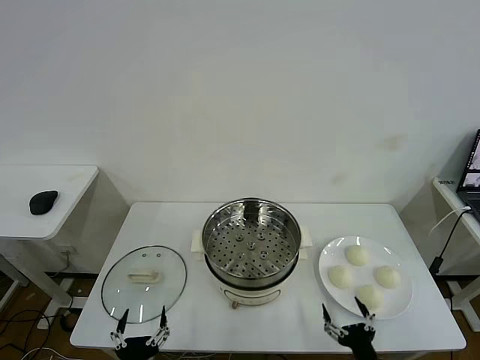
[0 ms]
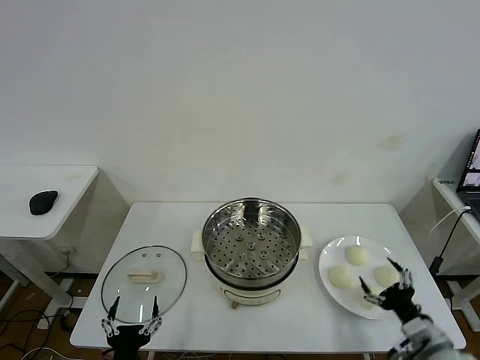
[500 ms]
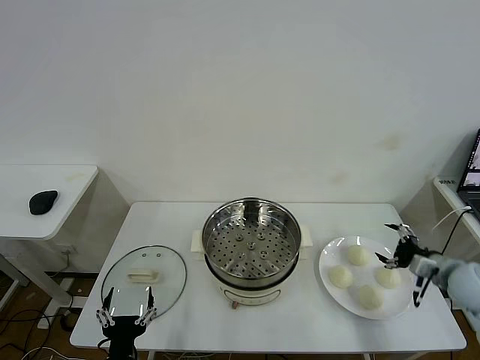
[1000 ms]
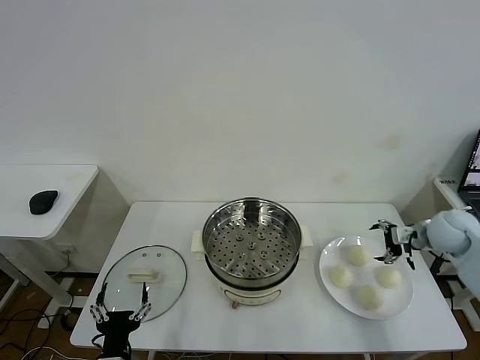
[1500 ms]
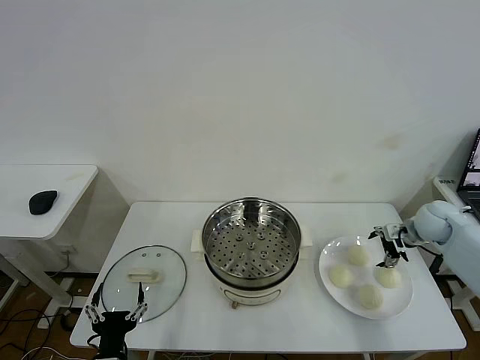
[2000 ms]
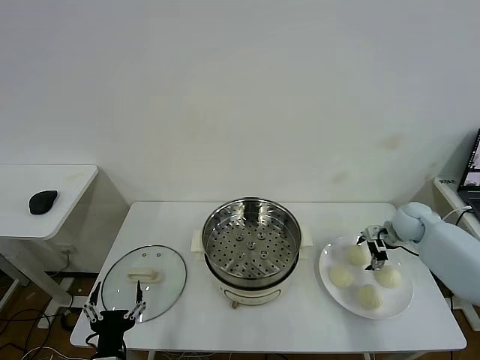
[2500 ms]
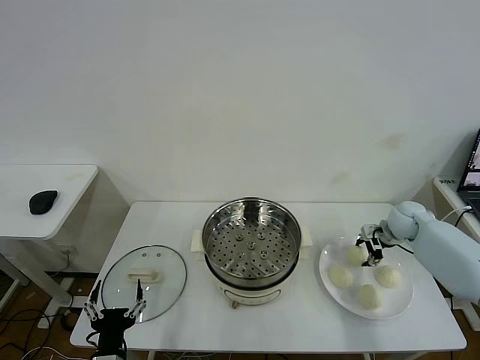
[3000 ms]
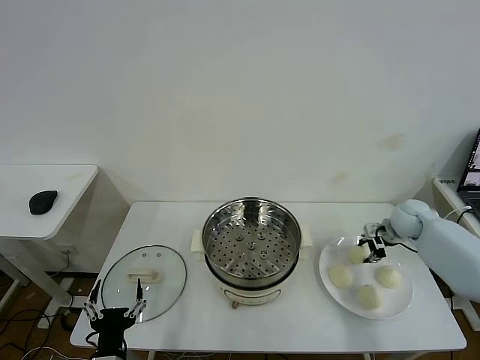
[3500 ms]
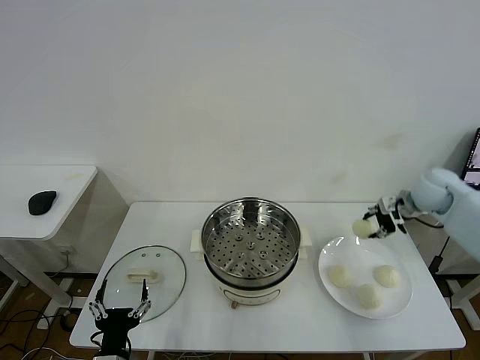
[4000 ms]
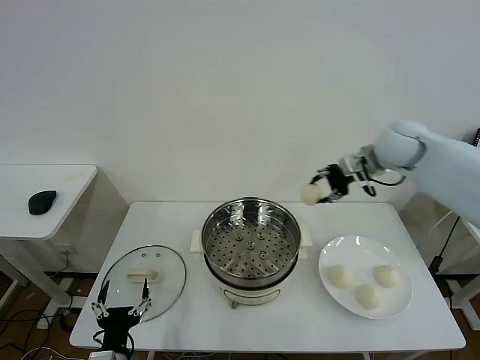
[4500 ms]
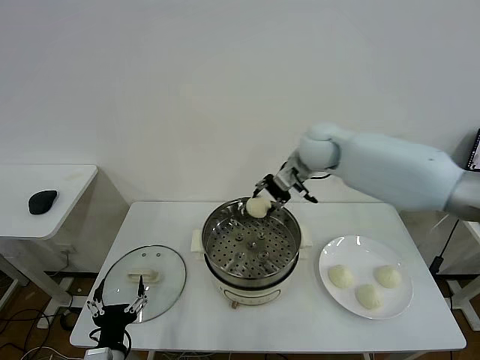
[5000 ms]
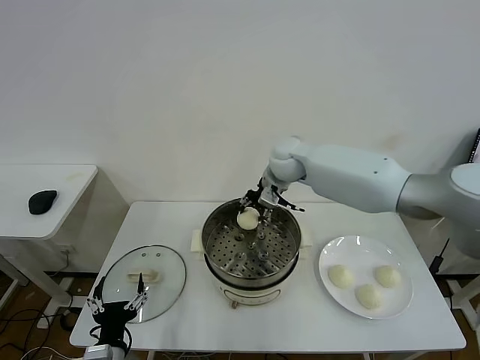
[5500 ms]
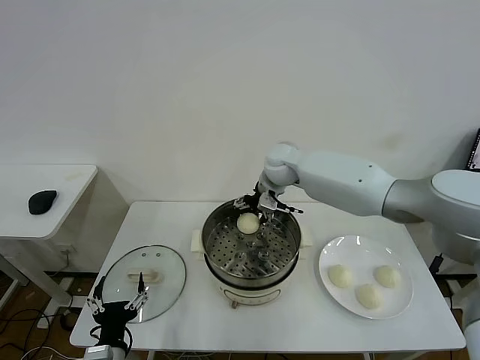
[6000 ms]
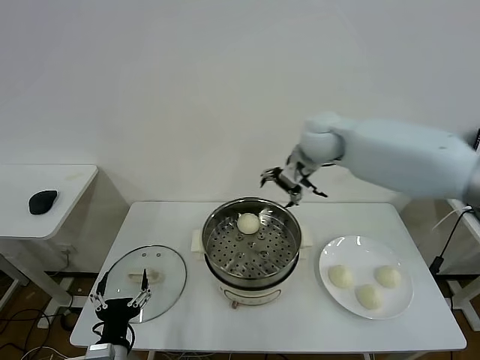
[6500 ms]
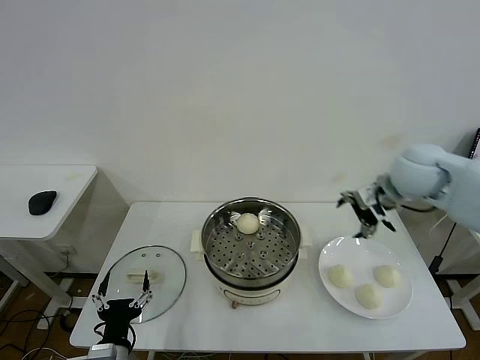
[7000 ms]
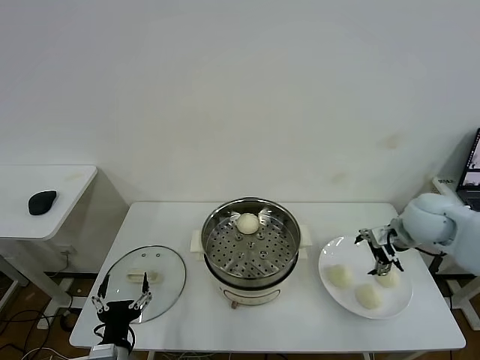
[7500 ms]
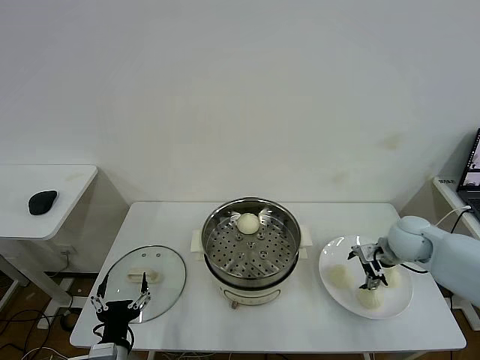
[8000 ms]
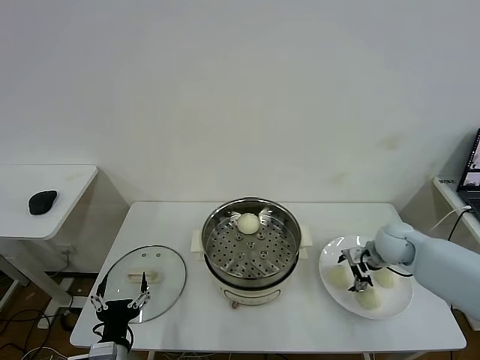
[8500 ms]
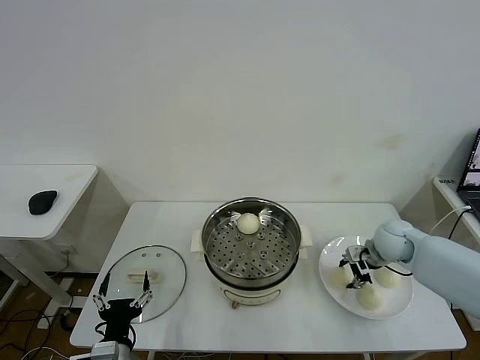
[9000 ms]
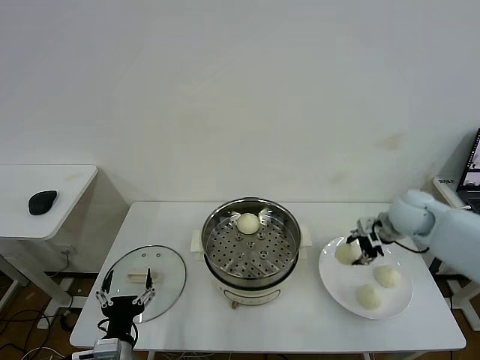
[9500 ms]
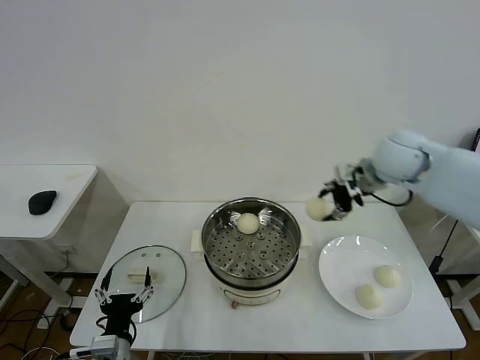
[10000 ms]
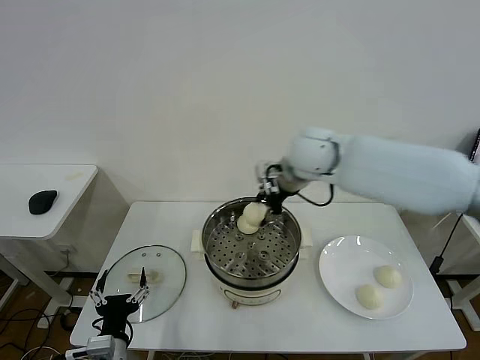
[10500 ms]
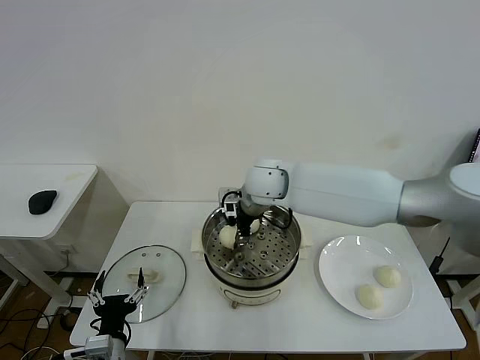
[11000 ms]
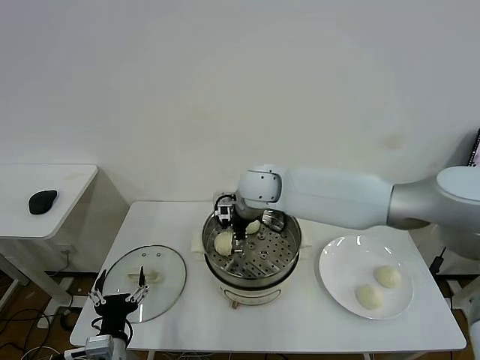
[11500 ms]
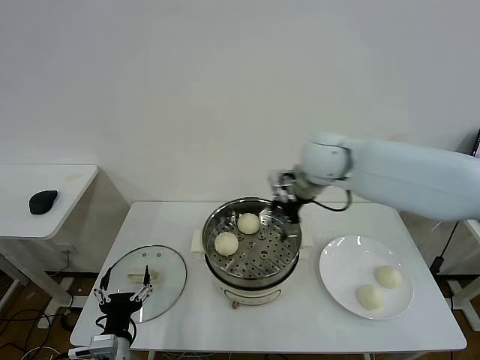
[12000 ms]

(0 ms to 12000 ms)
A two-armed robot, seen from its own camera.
Task of the whole recording: take steamed baozi put them in steamer then cover it.
Step, 0 ms - 3000 ms: Grasp the baozi in the plate with right gripper.
Step, 3500 ms - 6000 ms: Place the baozi on the steamer with right gripper.
Step, 6500 ms - 9000 ms: Grasp the baozi in the plate with right gripper.
Step, 9500 ms - 11500 ms: Place the baozi on the steamer with right gripper.
2000 ms - 4000 ms: The right gripper moves upward, about 15 cm, and closes its fingers.
4000 ms - 6000 ms: The right gripper heads to the left, covering roughly 30 cm, and opens up.
6000 ms - 8000 ms: The right gripper goes roughly 35 cm to the right, backward and downward.
8000 ms - 10000 ms: The right gripper moves upward and to the left, roughly 25 cm, and closes.
10000 ms - 12000 ms: The right gripper travels to the left and back again, approximately 20 cm each way, and opens.

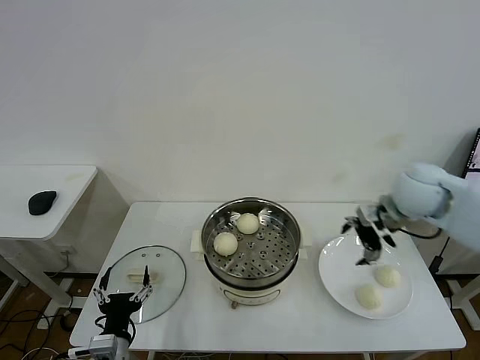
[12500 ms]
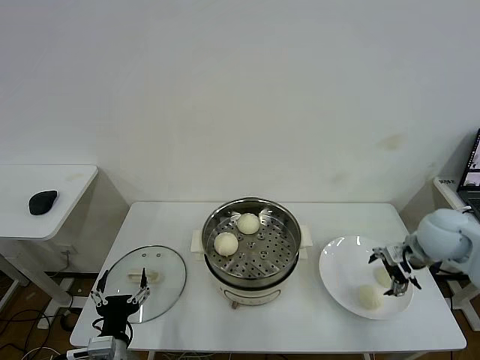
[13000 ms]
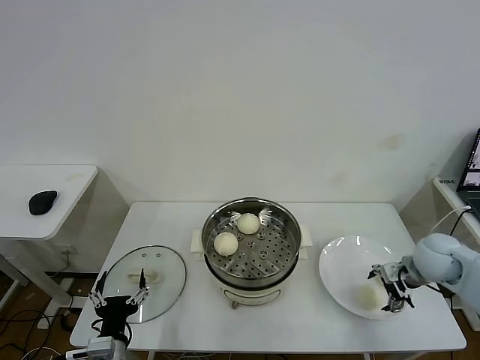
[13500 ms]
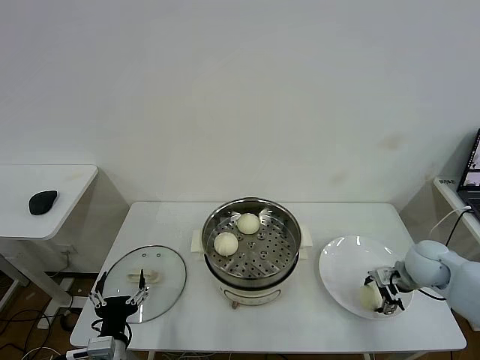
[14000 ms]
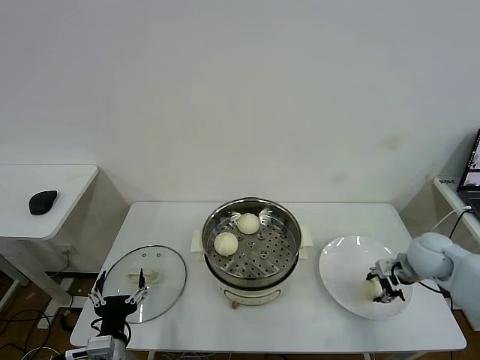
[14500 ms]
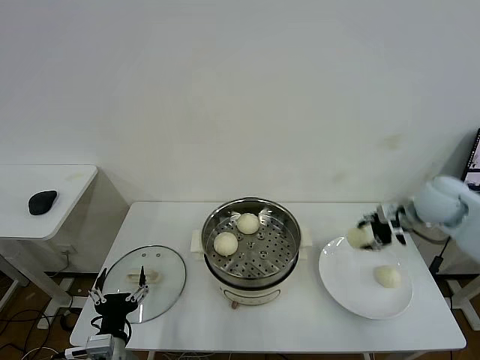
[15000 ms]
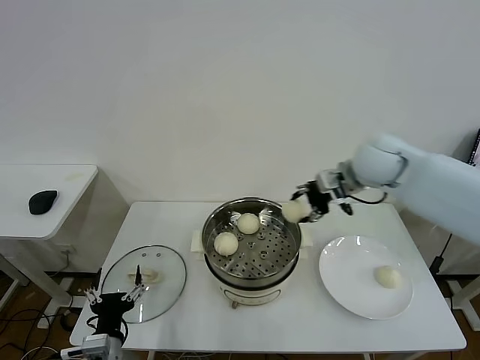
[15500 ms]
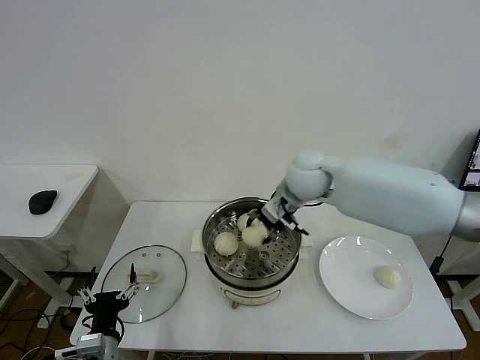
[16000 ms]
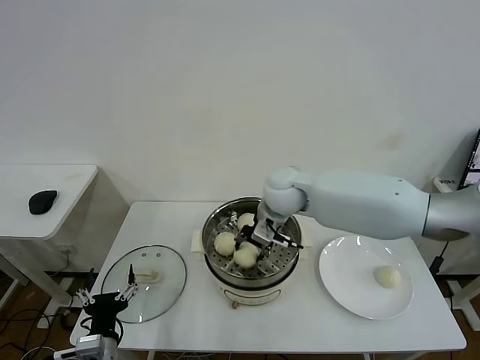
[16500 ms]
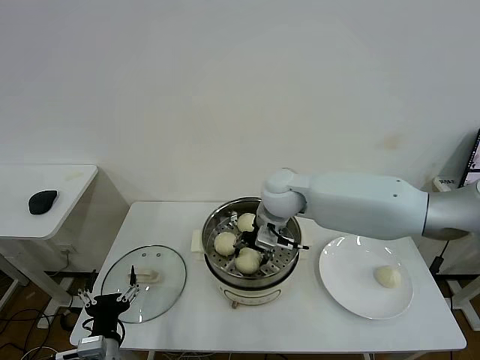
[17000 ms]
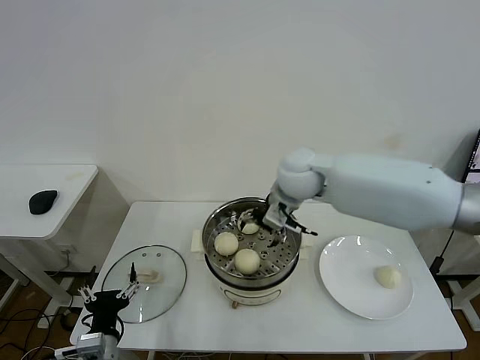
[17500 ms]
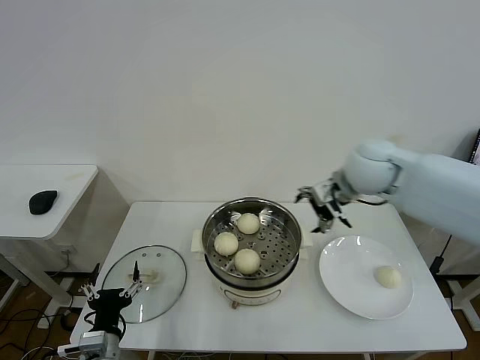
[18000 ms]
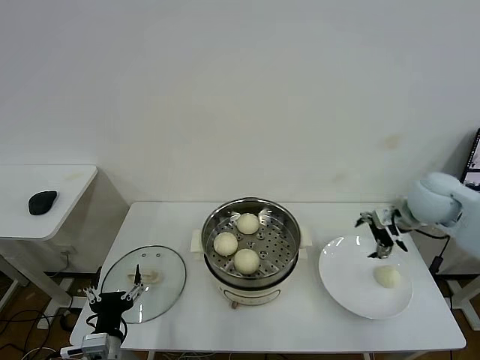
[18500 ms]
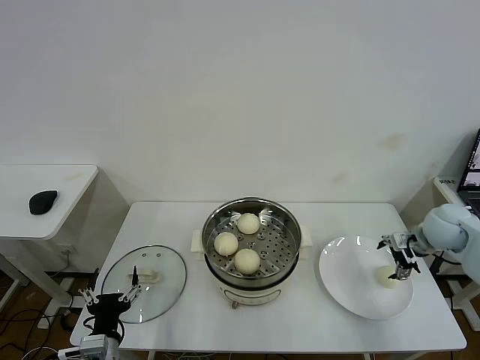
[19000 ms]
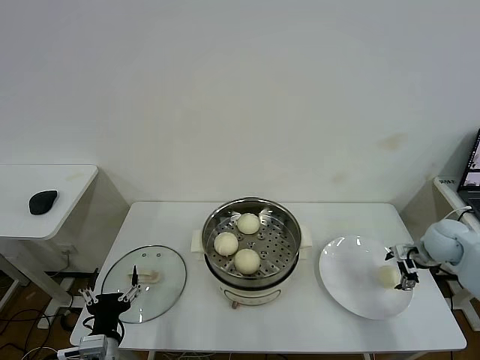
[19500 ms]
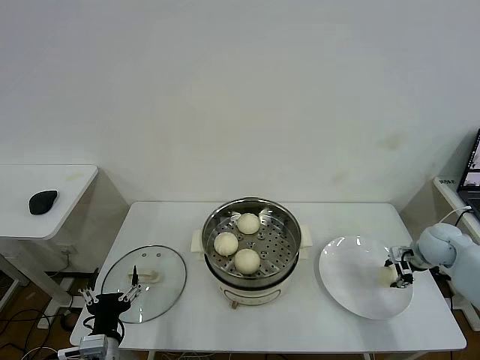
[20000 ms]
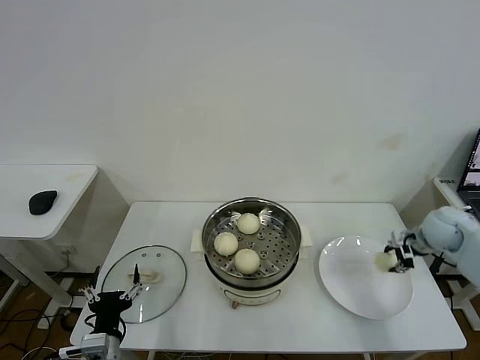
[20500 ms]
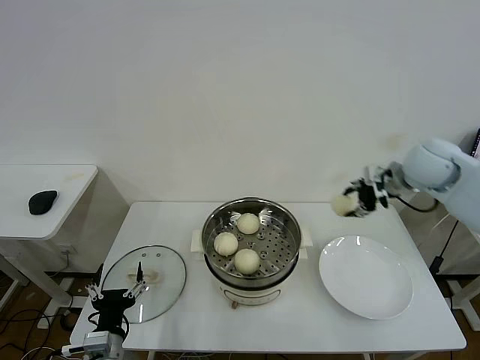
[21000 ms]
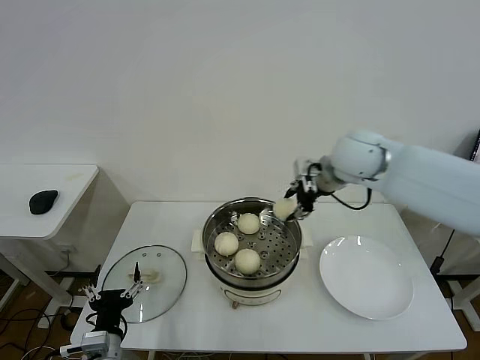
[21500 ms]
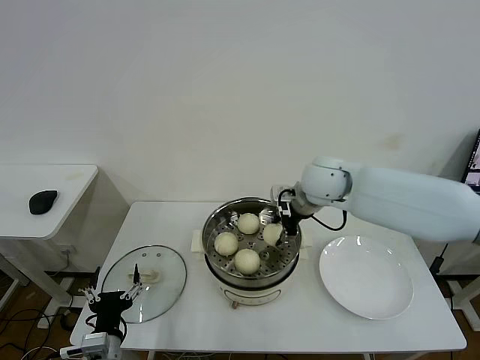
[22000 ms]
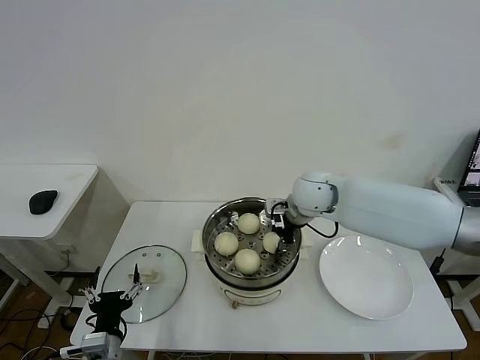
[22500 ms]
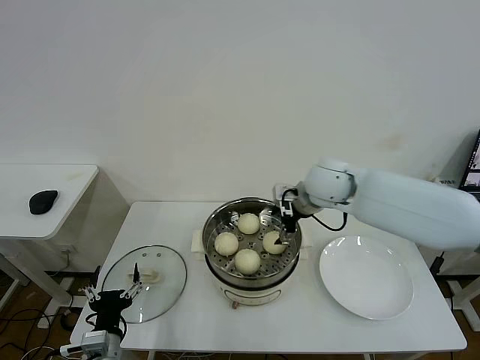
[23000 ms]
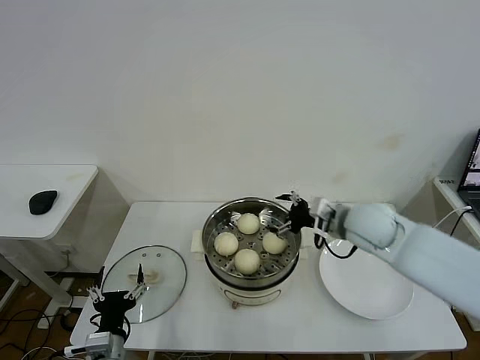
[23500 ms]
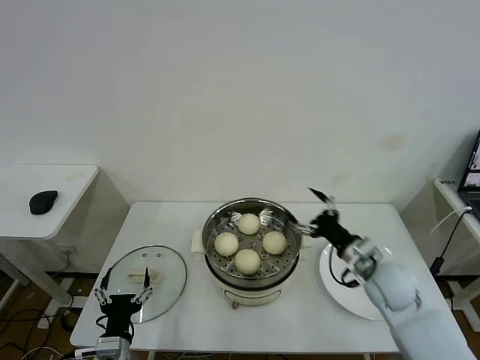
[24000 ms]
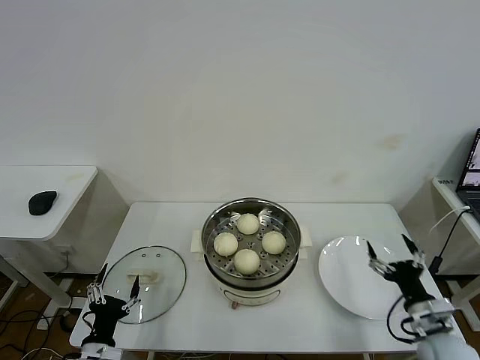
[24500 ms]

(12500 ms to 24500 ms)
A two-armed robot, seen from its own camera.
Task of the whole recording: take steamed baozi put them in steamer then cover it.
Step, 12500 ms - 14000 ms: Grasp the baozi in the plate with right gripper.
Step, 14500 ms - 17000 ms: Place the baozi on the steamer with right gripper.
Step, 17500 ms - 20000 ms: Grasp the baozi in the plate with right gripper.
Step, 21000 ms - 22500 ms: Place the baozi on the steamer with right gripper.
12500 ms - 14500 ms: The right gripper goes about 15 cm downward and to the right, and closes its fingers.
14500 ms - 16500 ms: The right gripper is displaced to the left by approximately 35 cm.
16500 ms - 18500 ms: The right gripper heads to the right, covering approximately 30 cm, and opens up.
18500 ms - 20500 ms: The right gripper travels downward and to the right by roughly 10 cm, and closes its fingers.
20500 ms - 22500 ms: The right gripper is displaced to the left by about 30 cm.
22500 ms - 24500 ms: The left gripper shifts by roughly 5 cm, while the right gripper shifts approximately 40 cm backward, to the right and downward, and opens up.

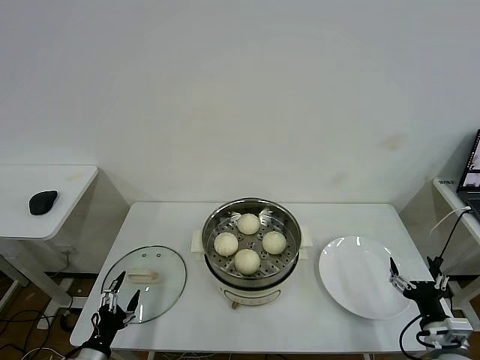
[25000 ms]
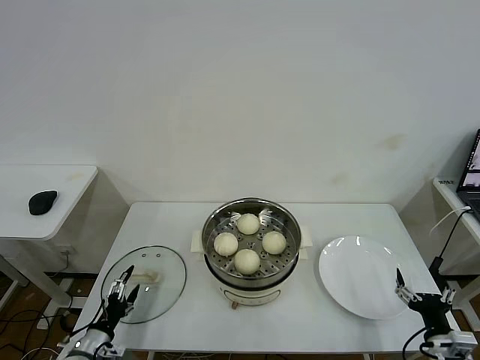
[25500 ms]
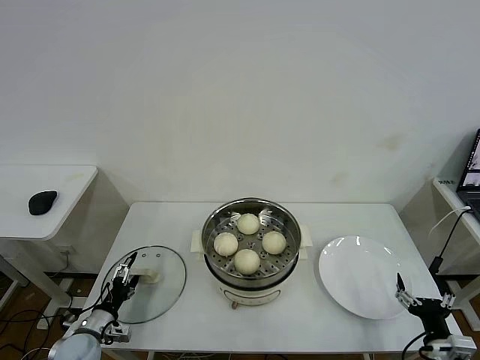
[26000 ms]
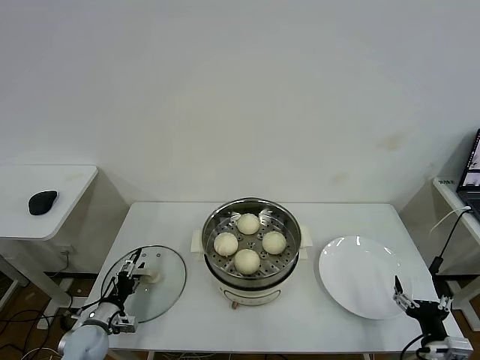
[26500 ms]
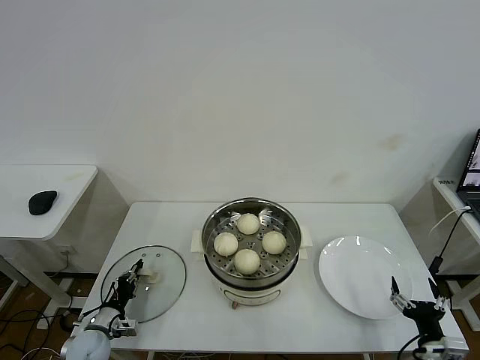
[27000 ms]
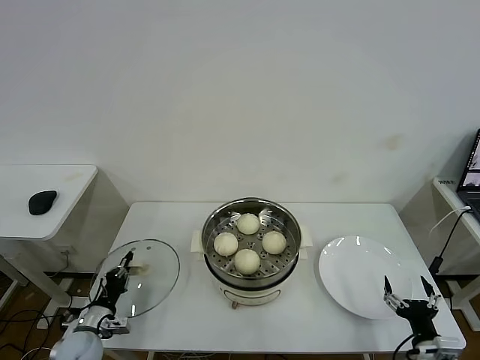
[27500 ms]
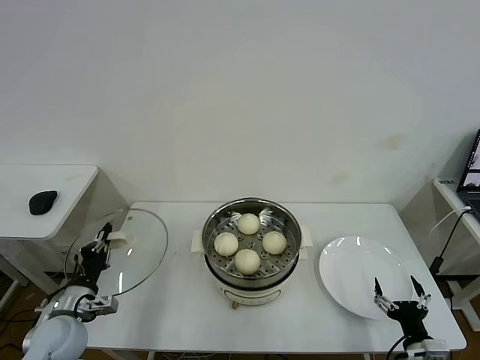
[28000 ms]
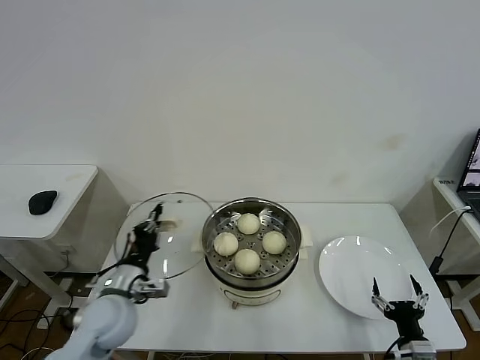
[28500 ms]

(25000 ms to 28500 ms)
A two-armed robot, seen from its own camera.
Task of the whole recording: take steamed baozi put them in steamer then cover it.
Step, 25000 ms - 27000 ms: Grasp the pot lid with left gripper.
25000 ms - 27000 ms: The left gripper travels forward and downward by about 15 cm, and closes its fingers.
27000 ms - 28500 ms: The left gripper travels upward and to the right by some 20 cm.
